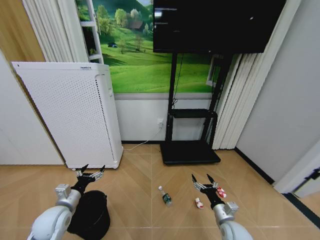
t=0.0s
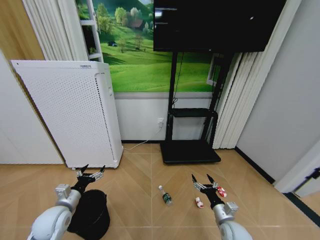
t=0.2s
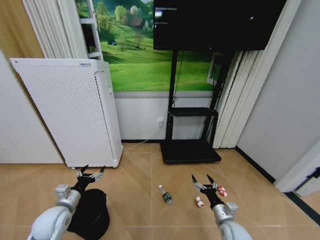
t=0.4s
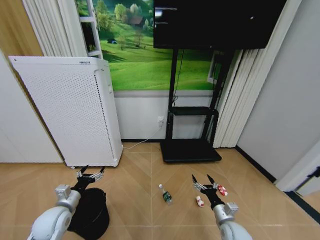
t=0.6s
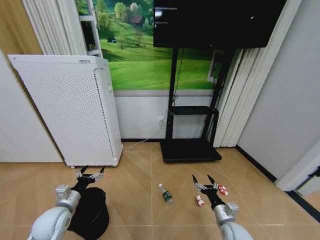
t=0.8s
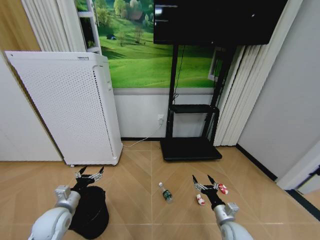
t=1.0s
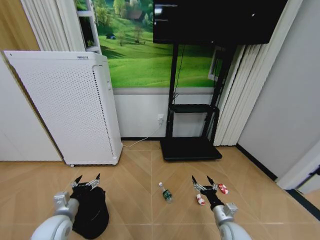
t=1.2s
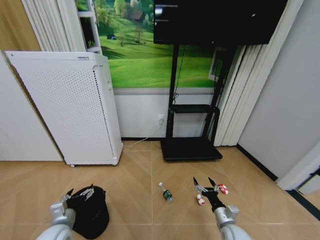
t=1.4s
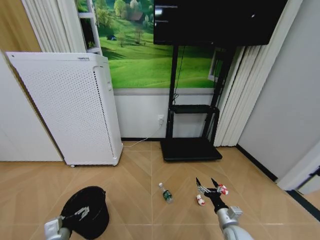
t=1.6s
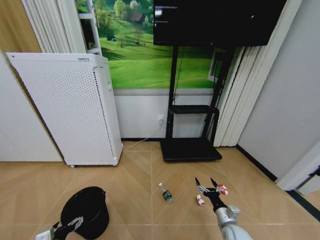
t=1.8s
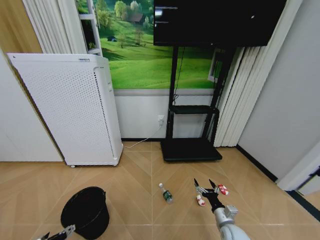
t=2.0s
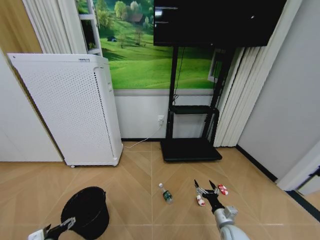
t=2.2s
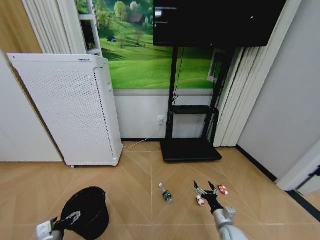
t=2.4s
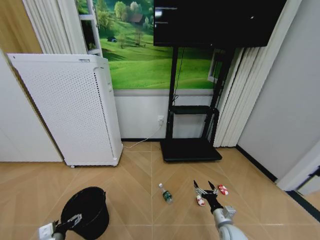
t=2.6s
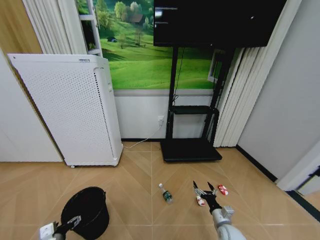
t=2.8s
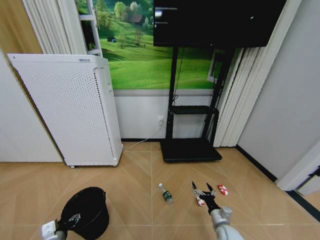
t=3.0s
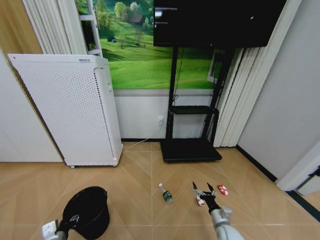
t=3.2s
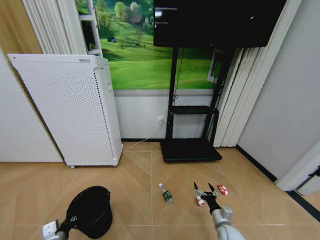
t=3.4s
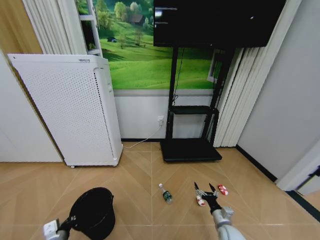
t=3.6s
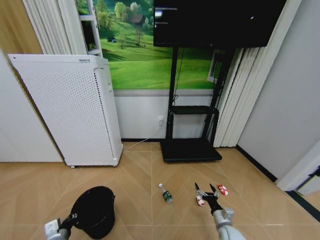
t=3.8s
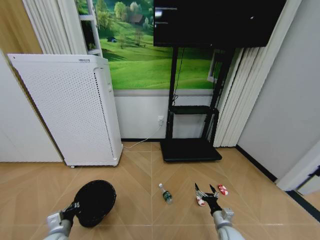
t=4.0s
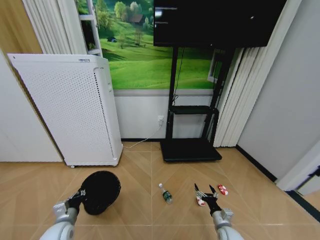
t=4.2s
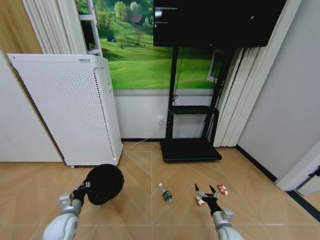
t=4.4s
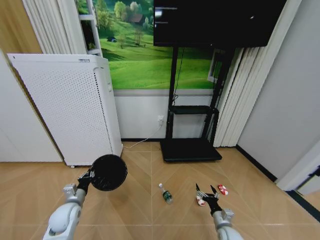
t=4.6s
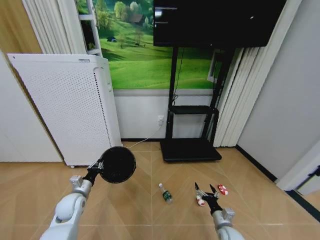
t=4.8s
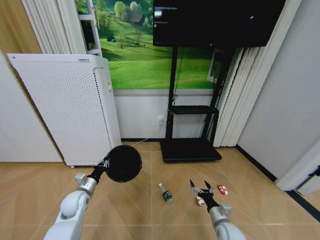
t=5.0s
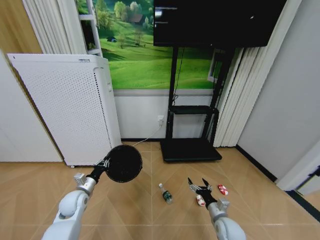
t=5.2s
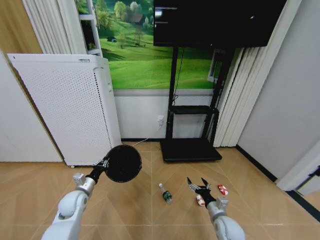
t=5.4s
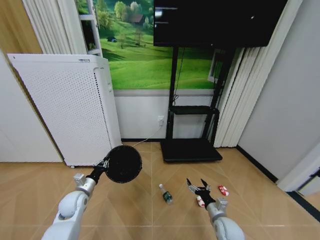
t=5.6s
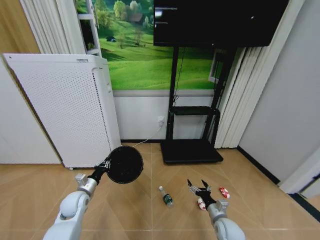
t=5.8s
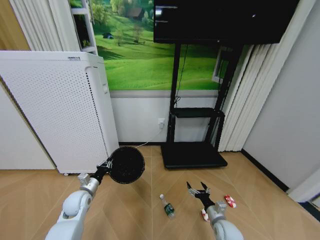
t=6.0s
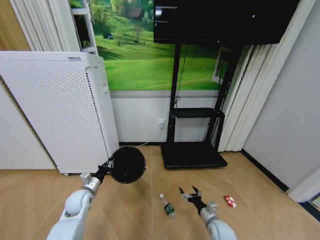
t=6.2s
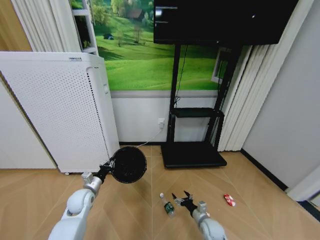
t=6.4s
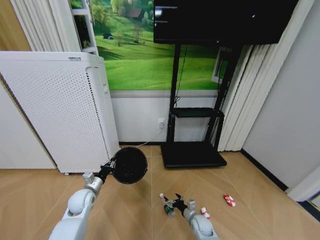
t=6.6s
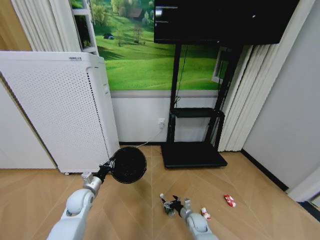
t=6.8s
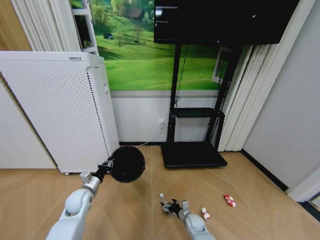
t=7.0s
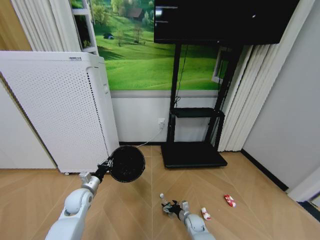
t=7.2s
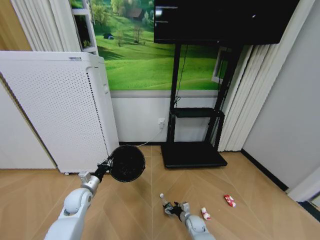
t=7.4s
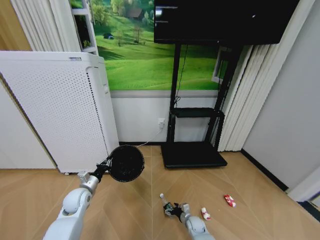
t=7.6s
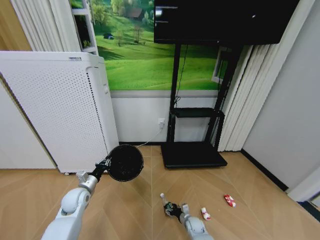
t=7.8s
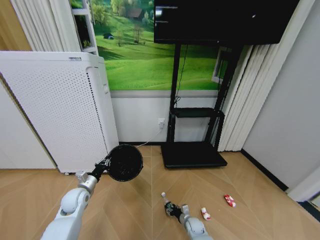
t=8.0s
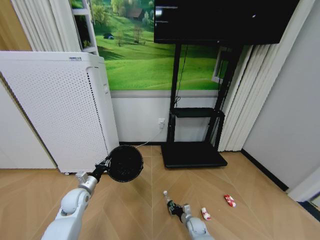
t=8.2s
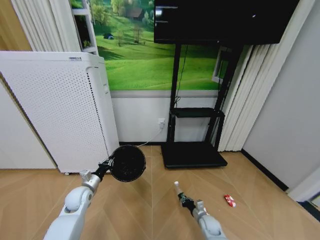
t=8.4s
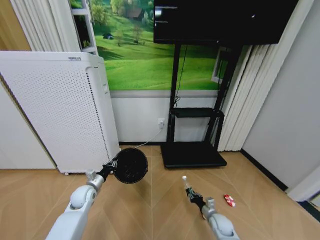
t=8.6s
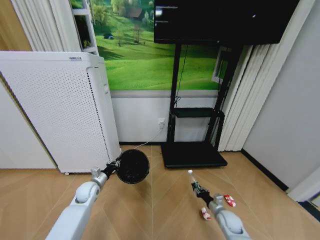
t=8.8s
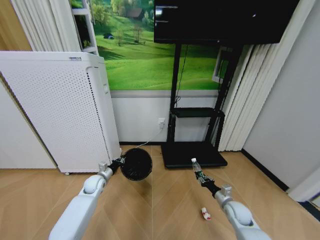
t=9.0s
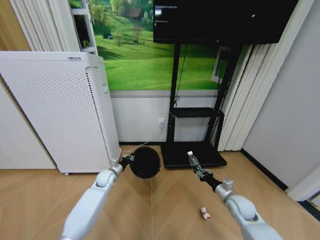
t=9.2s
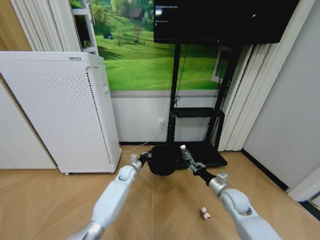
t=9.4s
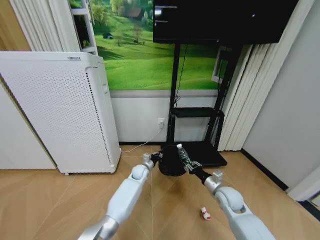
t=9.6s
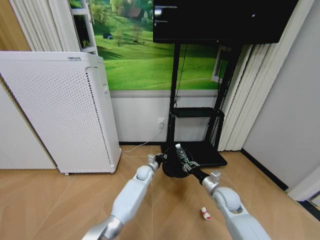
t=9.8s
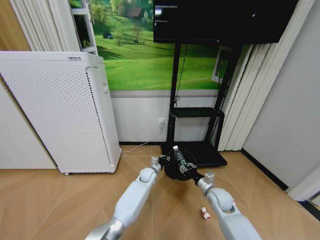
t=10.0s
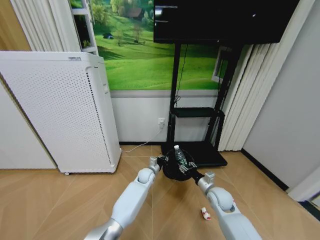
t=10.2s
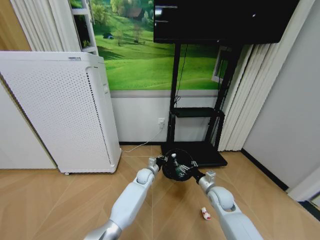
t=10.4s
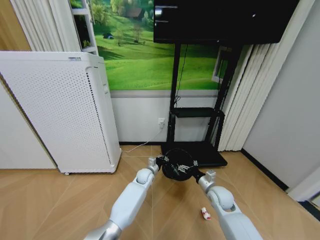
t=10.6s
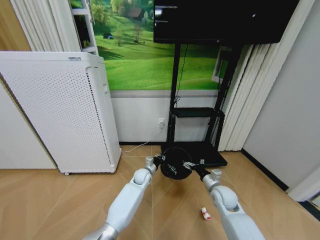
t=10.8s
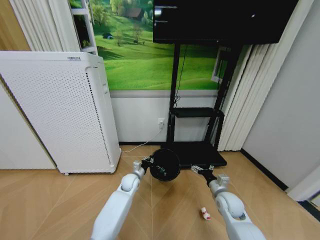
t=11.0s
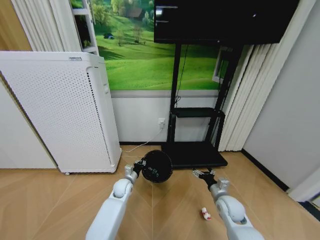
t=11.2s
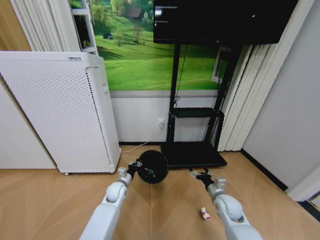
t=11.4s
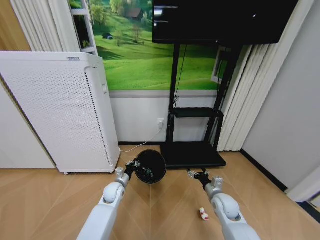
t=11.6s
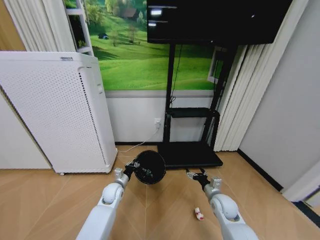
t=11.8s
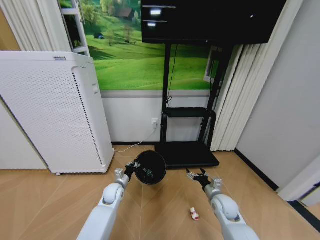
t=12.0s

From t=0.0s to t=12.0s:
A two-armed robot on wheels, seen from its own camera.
Task of the whole recording: Pick up the trash bin and place the garbage on the floor into it.
From t=0.0s to t=1.6s: The left gripper goes about 10 cm backward.
From t=3.0s to t=4.4s: The left gripper travels forward by roughly 10 cm, and closes its fingers.
From t=4.4s to t=6.0s: The right gripper shifts by some 5 cm, while the left gripper moves forward, approximately 10 cm.
From t=6.0s to t=7.6s: The right gripper goes approximately 20 cm downward, to the left and forward.
From t=7.6s to t=9.0s: The right gripper moves to the right and upward, approximately 20 cm, and closes up. The left gripper heads forward, covering about 5 cm.
From t=9.0s to t=10.4s: The left gripper goes roughly 30 cm to the right, while the right gripper moves upward and to the left, approximately 15 cm, and opens its fingers.
From t=10.4s to t=12.0s: The left gripper travels to the left and backward by roughly 20 cm.

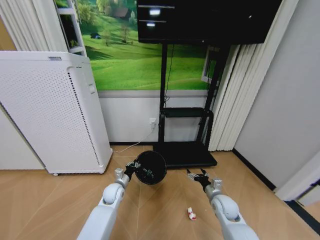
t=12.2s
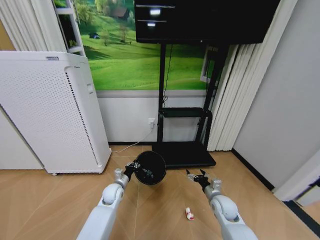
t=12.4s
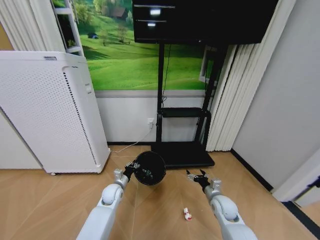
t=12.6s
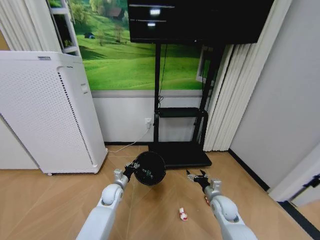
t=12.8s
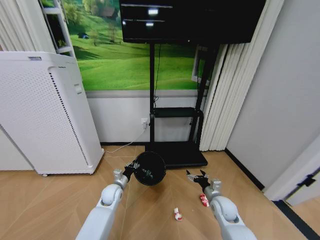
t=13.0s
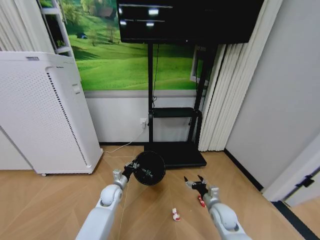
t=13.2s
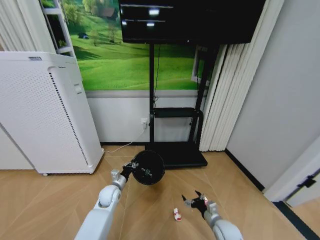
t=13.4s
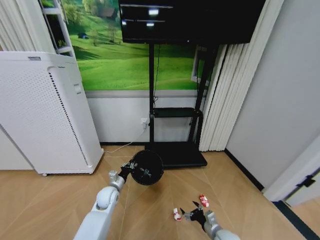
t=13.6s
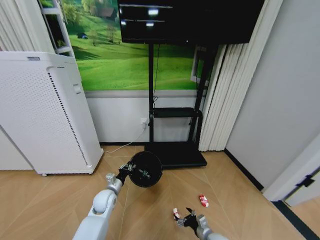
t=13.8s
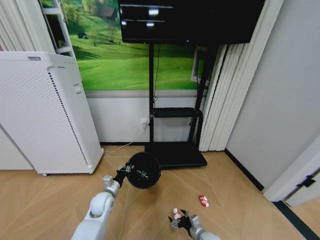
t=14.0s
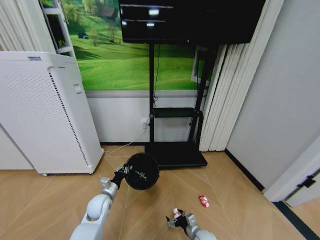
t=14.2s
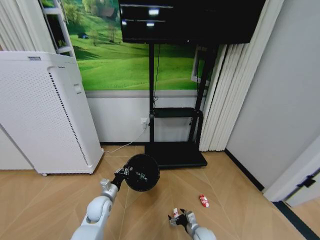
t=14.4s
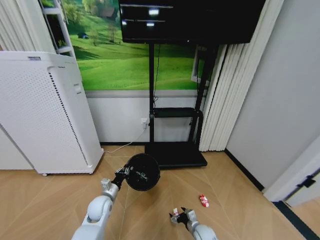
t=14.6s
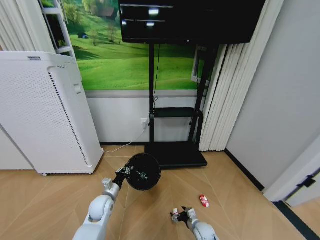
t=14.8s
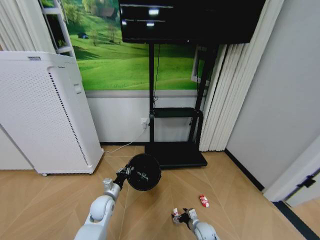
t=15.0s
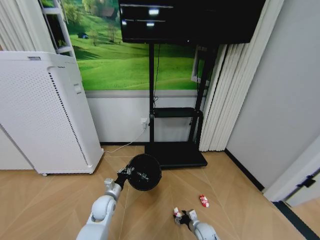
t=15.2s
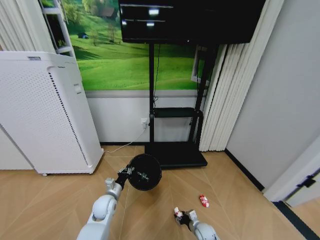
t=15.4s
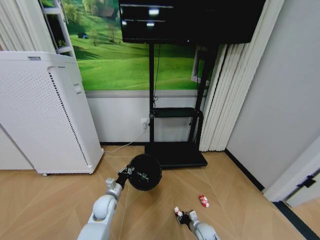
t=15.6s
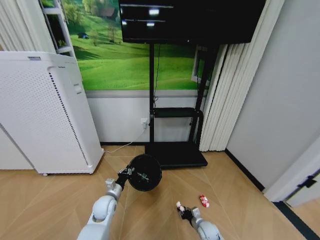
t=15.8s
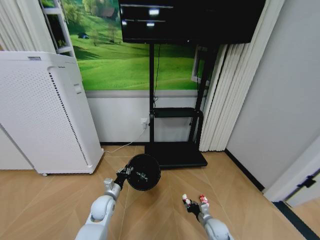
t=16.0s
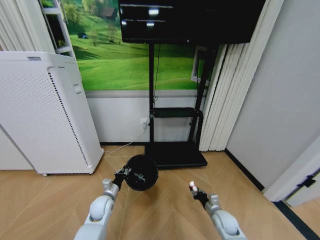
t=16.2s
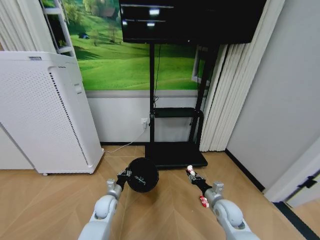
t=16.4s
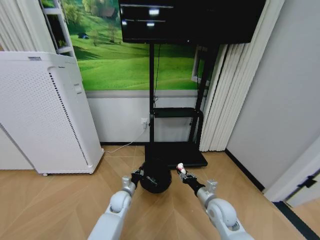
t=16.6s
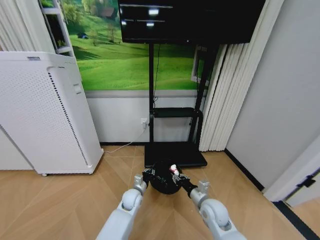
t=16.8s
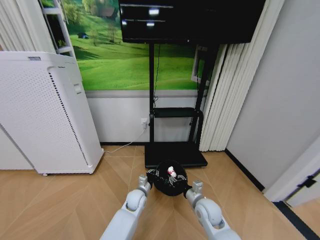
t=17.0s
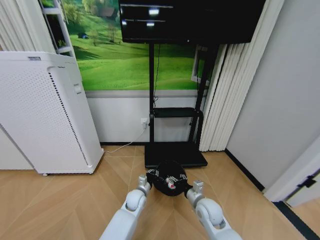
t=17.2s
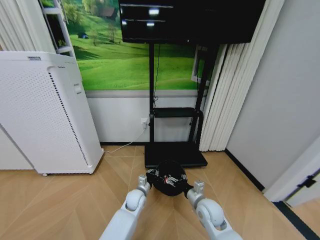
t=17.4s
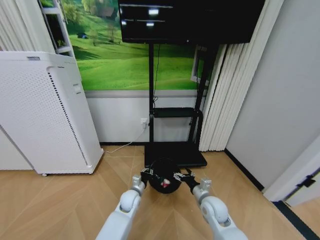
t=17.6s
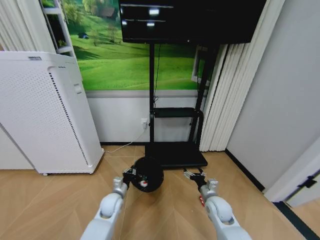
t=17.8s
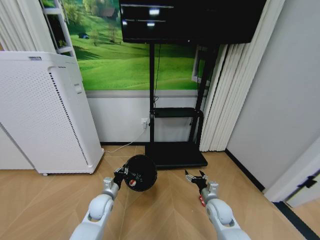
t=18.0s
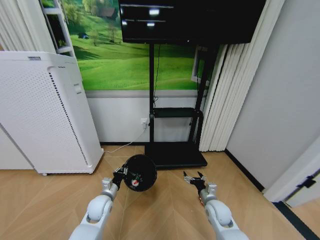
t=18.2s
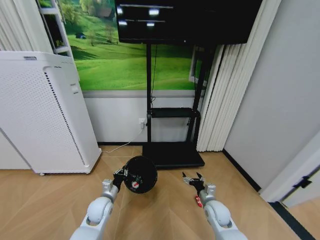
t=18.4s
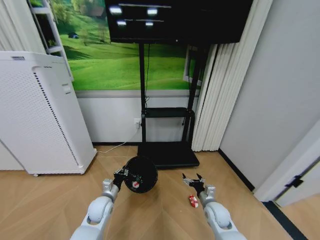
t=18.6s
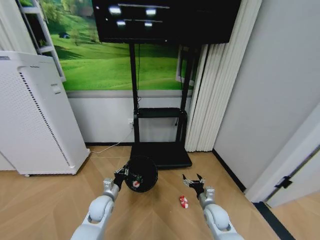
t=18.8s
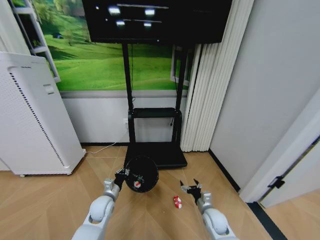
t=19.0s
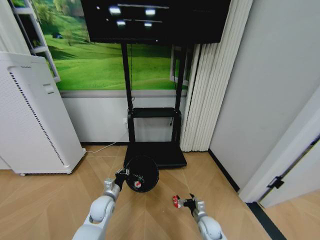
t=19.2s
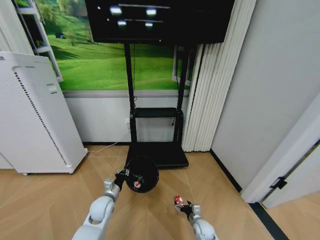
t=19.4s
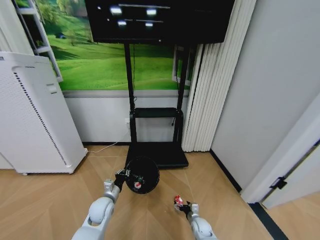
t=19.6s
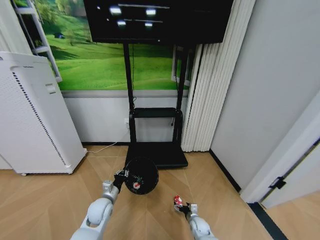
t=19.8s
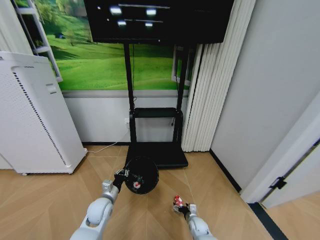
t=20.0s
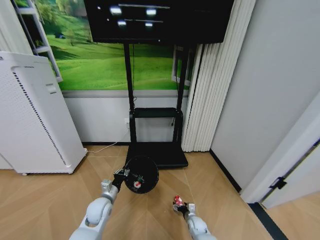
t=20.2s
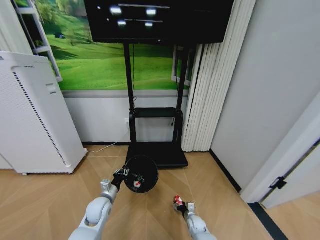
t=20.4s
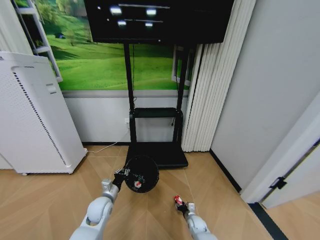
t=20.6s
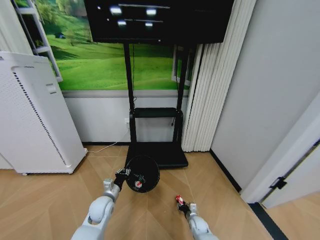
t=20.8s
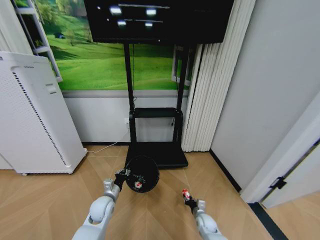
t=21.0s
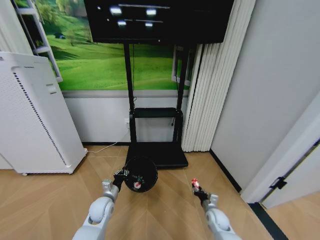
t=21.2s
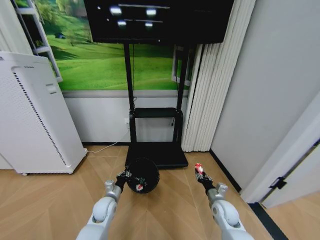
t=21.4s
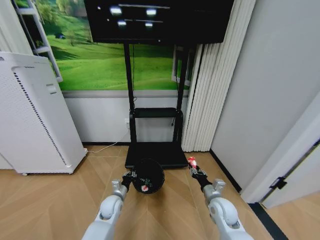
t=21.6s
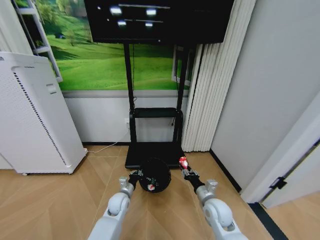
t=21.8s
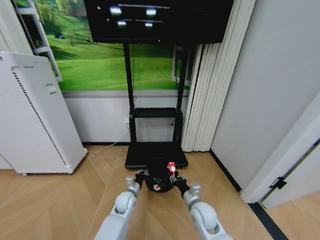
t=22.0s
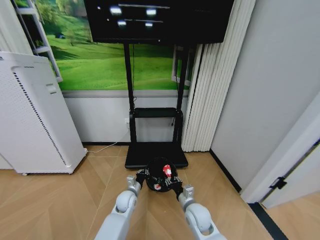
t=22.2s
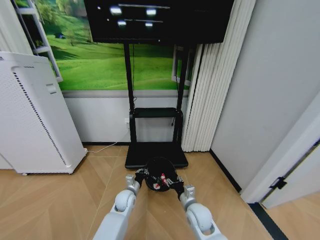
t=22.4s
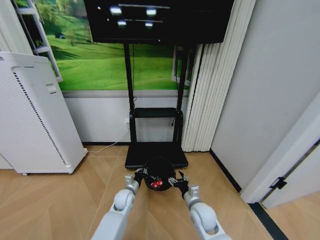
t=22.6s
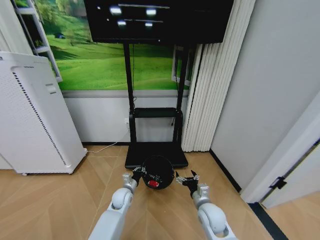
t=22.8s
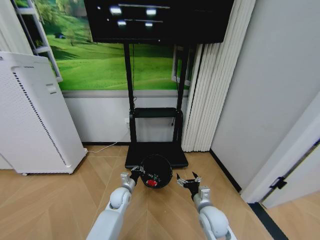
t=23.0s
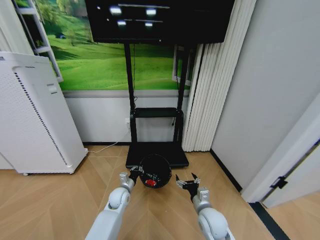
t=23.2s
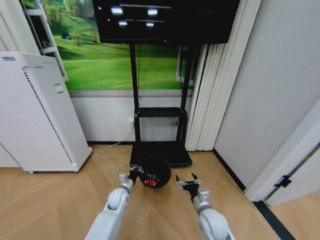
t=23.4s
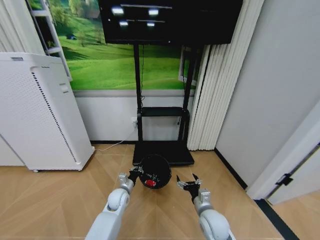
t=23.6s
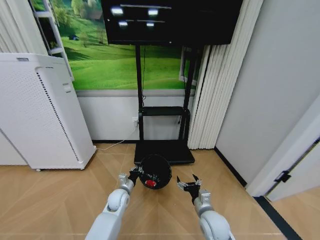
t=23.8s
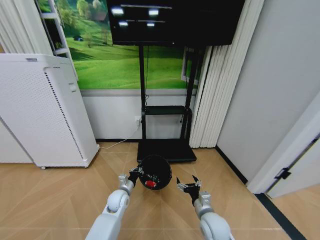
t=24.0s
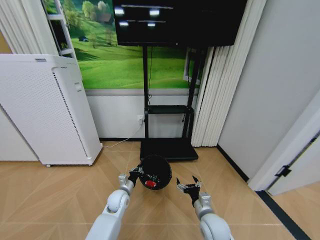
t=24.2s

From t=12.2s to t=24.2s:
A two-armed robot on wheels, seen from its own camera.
Task of the whole recording: Pick up the trash bin and place the garbage on the floor into it.
From t=12.2s to t=13.8s: The right gripper goes roughly 15 cm downward and backward.
From t=13.8s to t=15.2s: The right gripper moves downward and forward, approximately 10 cm.
From t=15.2s to t=16.6s: The left gripper shifts some 5 cm to the right. The right gripper moves upward, about 25 cm, and closes up.
From t=16.6s to t=18.2s: The left gripper moves to the left, roughly 5 cm; the right gripper moves downward, roughly 5 cm, and opens up.
From t=18.2s to t=19.8s: The right gripper heads downward, covering about 20 cm.
From t=19.8s to t=21.2s: The right gripper is displaced upward and to the right by some 10 cm, and closes.
From t=21.2s to t=22.6s: The left gripper shifts about 10 cm to the right and forward. The right gripper is displaced upward and to the left by roughly 20 cm, and opens up.
